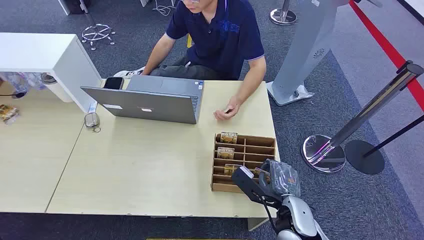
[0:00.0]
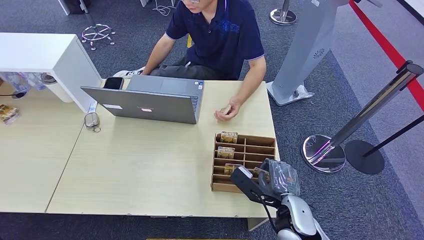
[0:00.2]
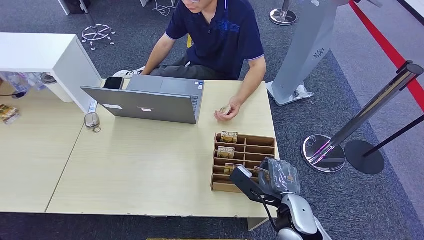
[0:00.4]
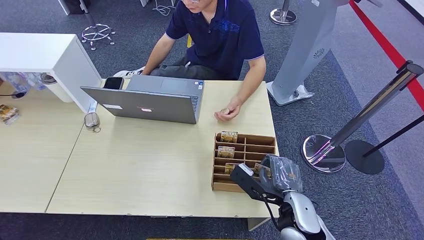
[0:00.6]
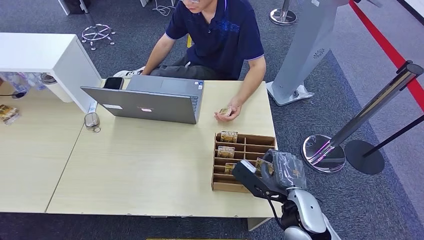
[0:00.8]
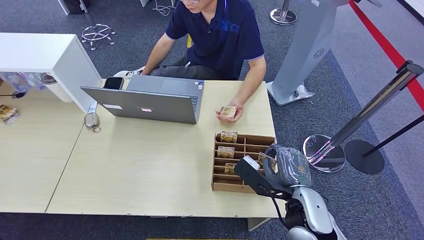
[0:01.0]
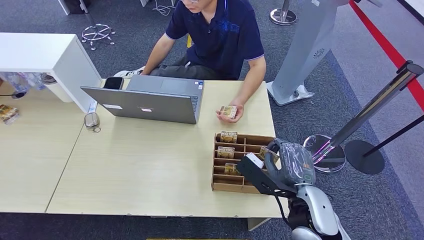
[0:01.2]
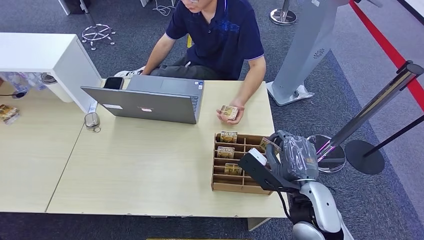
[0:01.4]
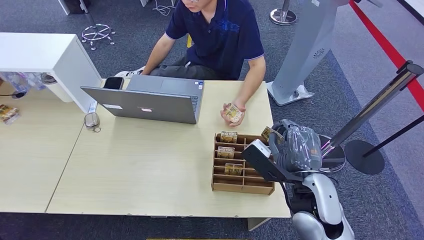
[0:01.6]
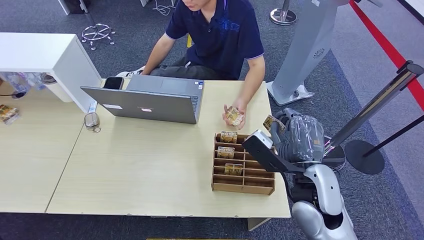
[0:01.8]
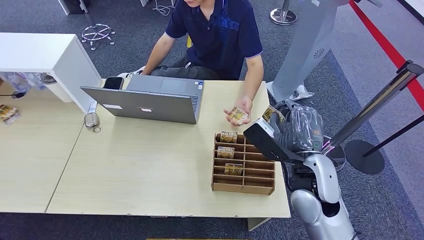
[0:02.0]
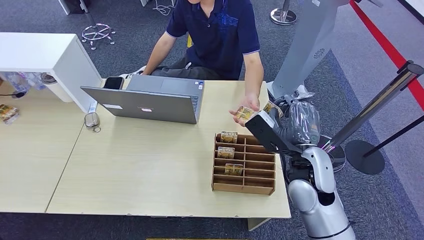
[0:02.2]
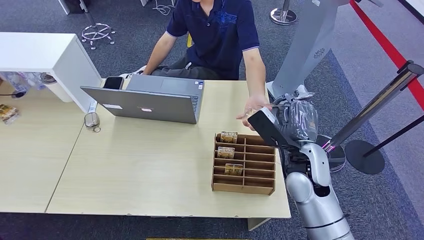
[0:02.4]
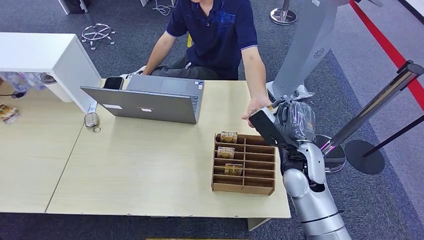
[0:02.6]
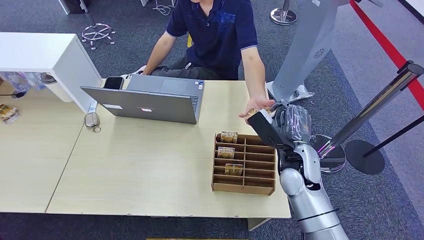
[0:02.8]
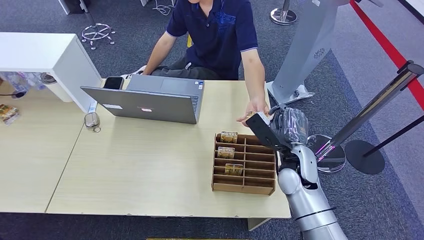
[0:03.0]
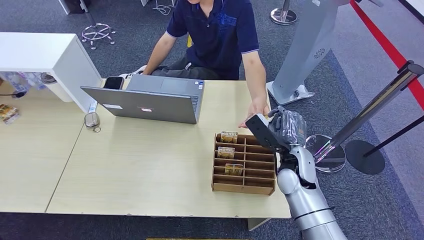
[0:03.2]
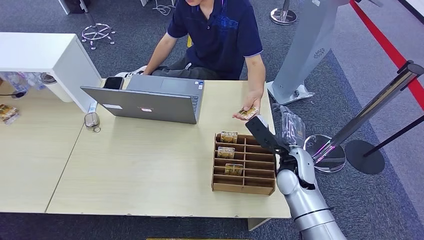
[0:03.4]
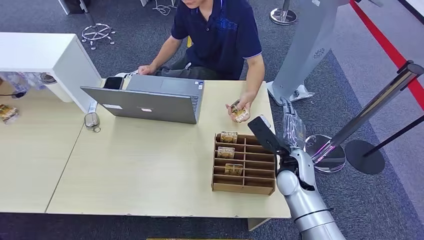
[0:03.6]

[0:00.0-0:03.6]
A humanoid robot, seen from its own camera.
Step, 0:00.0 to 0:01.0: Pick up the key card from the card box.
Step, 0:02.8 to 0:03.4: Hand the key card to the target.
0:01.8 to 0:03.6: The right hand moves forward and downward, approximately 15 cm.
